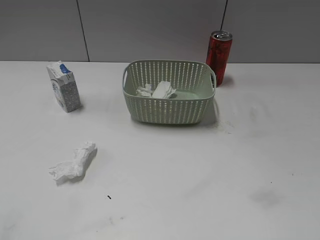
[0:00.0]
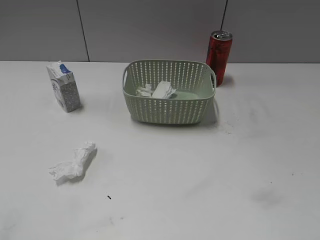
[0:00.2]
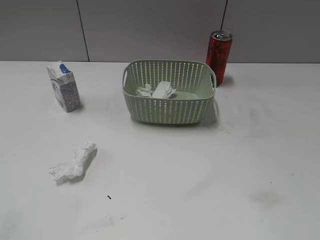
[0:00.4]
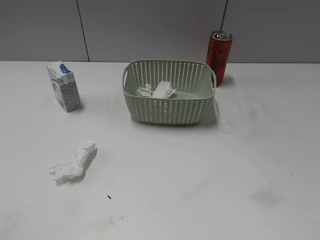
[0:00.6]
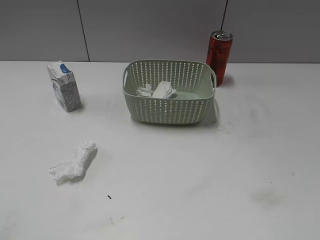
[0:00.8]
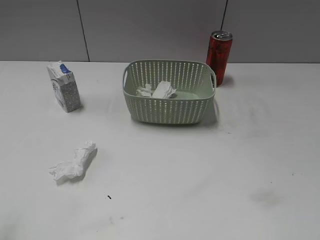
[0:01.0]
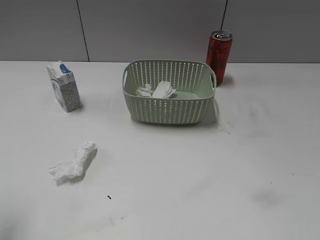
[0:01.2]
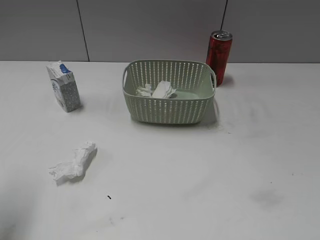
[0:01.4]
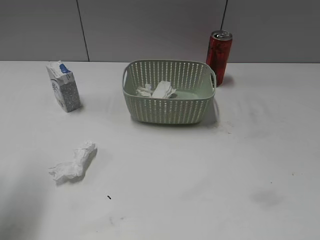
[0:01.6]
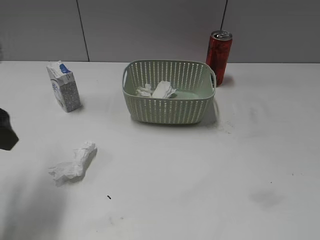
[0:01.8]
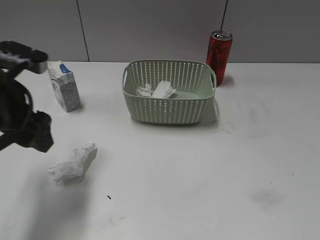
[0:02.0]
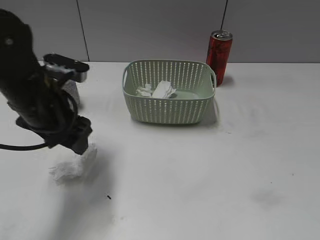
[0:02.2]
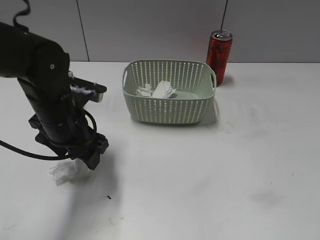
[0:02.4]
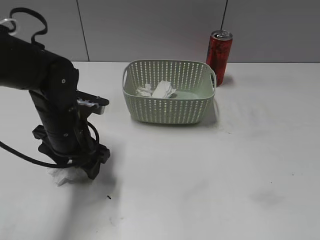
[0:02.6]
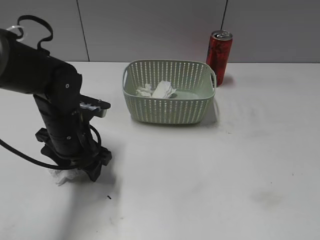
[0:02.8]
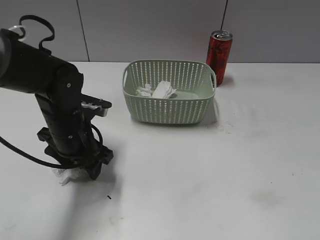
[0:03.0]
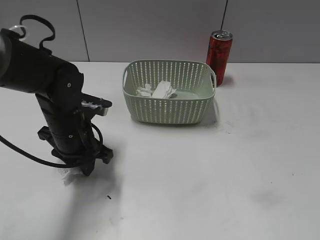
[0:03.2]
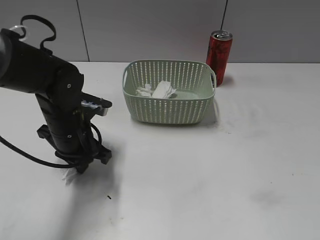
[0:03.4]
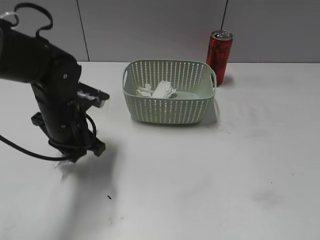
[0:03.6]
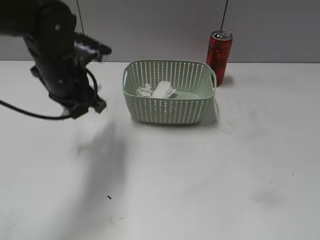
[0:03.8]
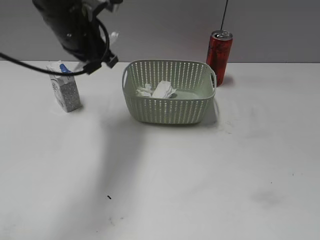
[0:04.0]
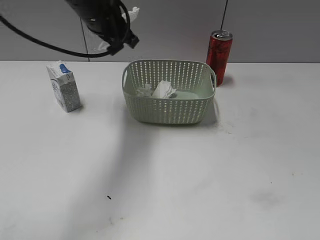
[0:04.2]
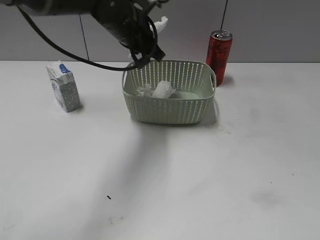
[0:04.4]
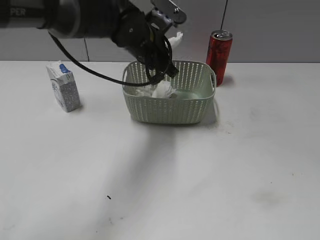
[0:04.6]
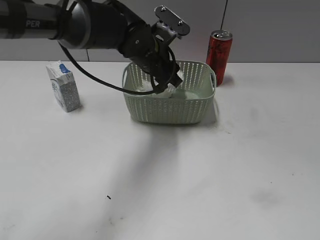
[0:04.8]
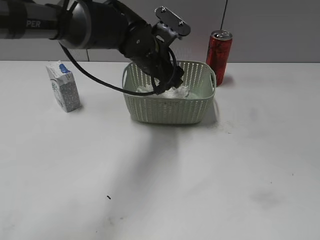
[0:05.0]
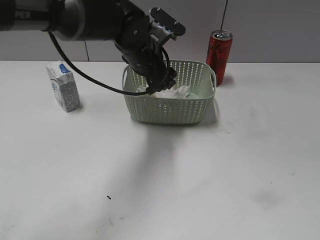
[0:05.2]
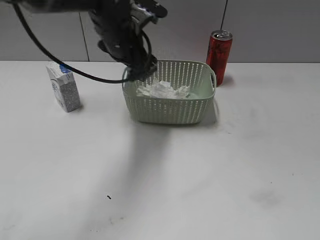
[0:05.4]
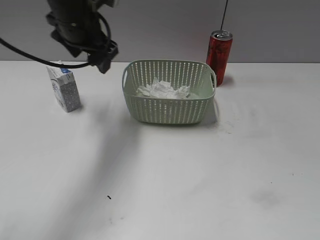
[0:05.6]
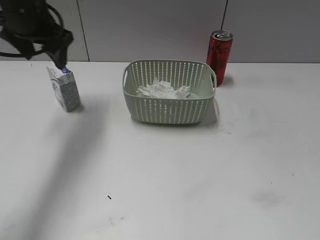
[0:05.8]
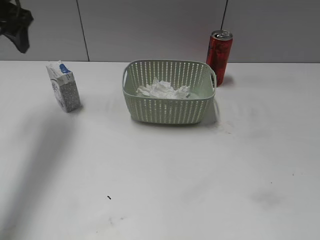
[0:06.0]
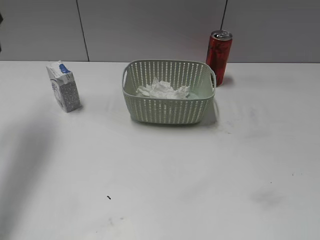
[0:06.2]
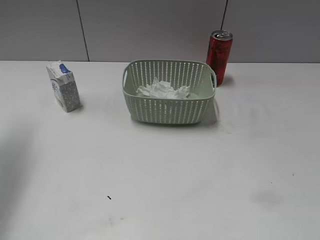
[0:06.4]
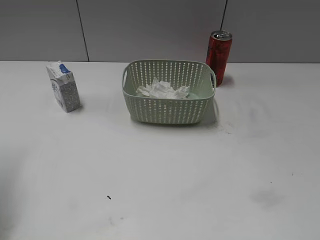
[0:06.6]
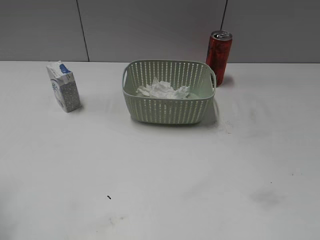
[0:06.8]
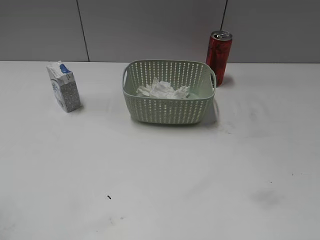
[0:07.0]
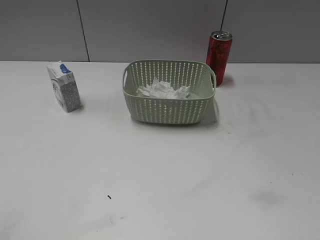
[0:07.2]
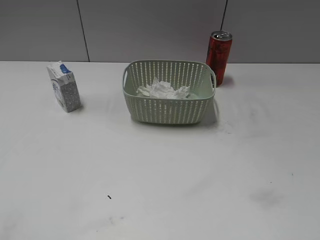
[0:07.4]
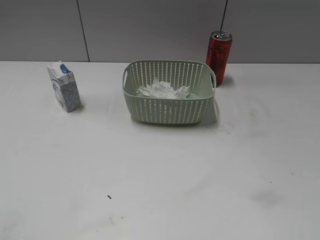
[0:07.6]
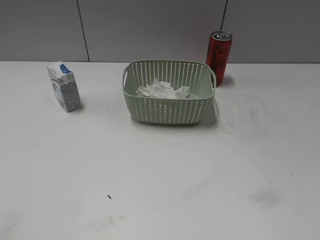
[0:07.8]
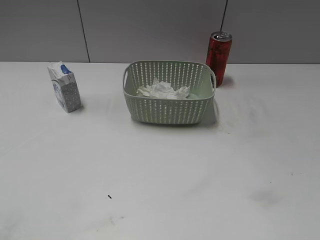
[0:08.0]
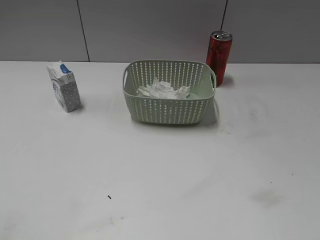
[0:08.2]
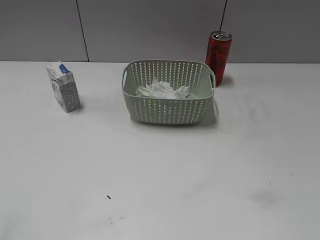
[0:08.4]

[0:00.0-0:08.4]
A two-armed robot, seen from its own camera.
Step, 0:01.6 to 0:03.4: Grasp the waste paper with left gripper.
Step, 0:03.6 to 0:05.0: Place the waste paper in the basket with left gripper.
0:01.4 to 0:02.8: The left gripper goes about 25 cm downward, to the right and forward.
0:02.8 to 0:04.2: The left gripper travels upward and forward by some 20 cm, and closes.
0:04.2 to 0:05.6: The left gripper goes to the right and returns, approximately 10 cm each way, and opens up.
0:05.6 to 0:07.0: The left gripper goes about 35 cm backward and to the left.
